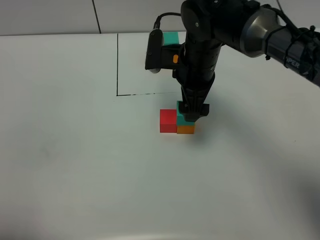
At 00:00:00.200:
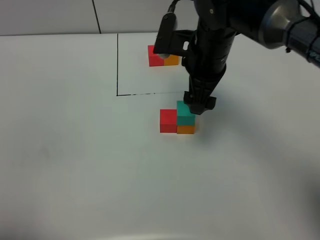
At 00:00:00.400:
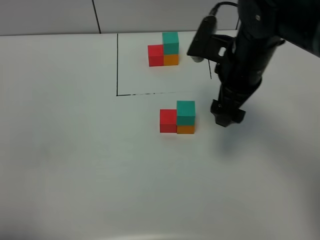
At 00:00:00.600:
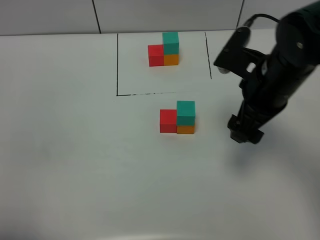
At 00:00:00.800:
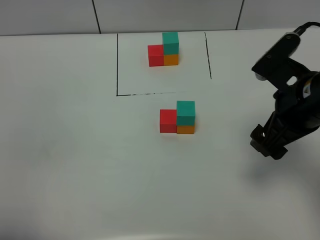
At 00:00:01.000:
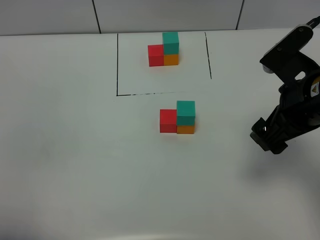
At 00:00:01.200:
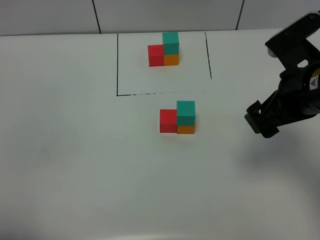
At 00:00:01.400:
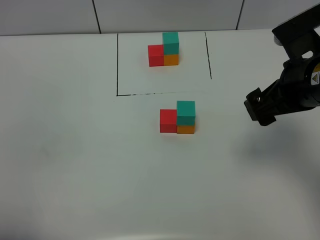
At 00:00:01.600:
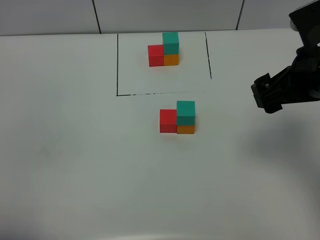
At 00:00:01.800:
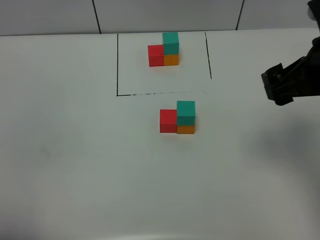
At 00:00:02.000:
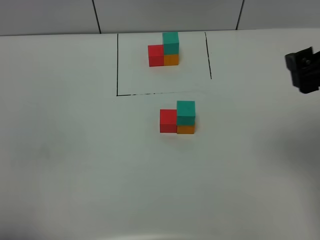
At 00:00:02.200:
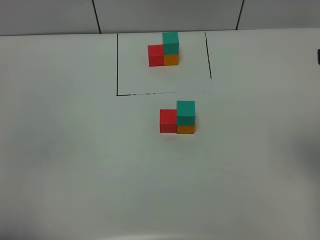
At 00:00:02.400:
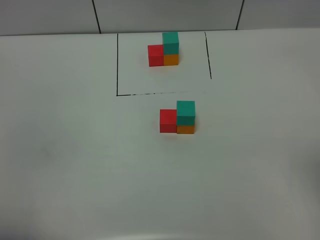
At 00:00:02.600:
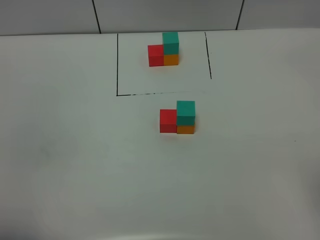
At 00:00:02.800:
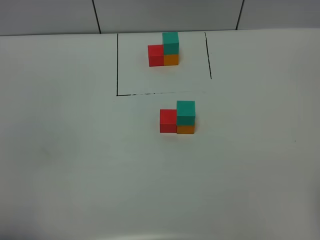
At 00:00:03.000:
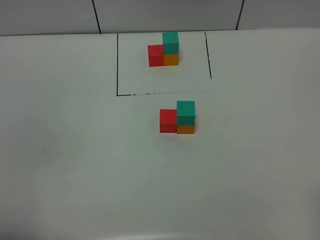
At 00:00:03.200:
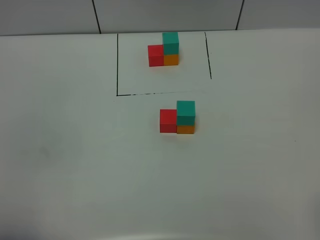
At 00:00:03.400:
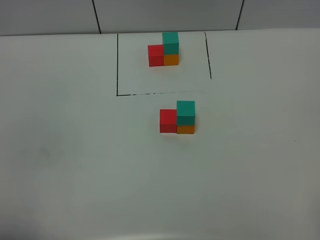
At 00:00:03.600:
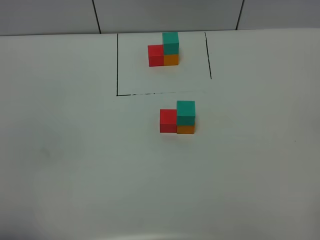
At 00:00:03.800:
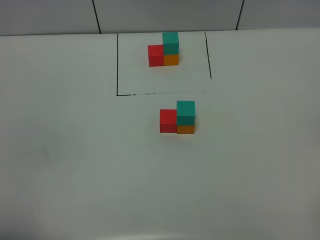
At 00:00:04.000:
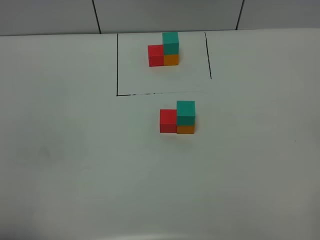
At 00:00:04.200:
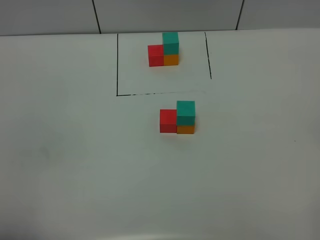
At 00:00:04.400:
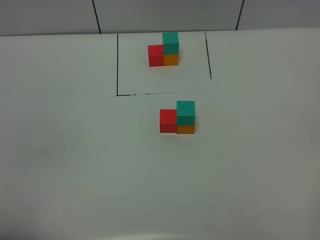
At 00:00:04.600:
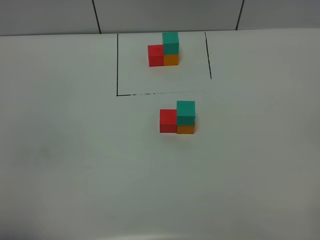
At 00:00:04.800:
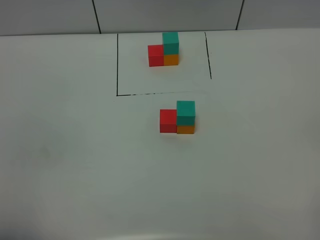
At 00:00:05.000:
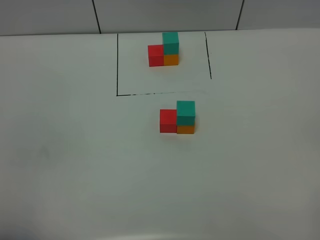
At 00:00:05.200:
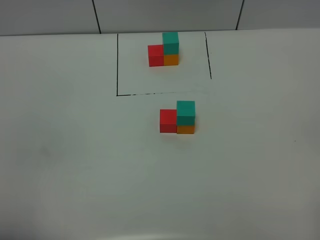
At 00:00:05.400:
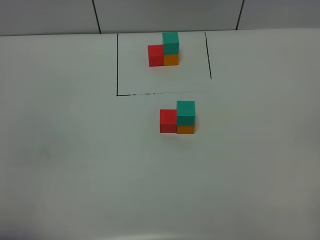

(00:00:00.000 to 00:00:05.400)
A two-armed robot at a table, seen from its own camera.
Task of the whole recording: According to the building block template in front, assemble the scattered blocks together.
00:00:00.000 - 00:00:01.400: The right gripper goes approximately 20 cm backward, to the right and upward.
00:00:01.400 - 00:00:02.800: The right gripper travels backward and to the right by about 20 cm.
